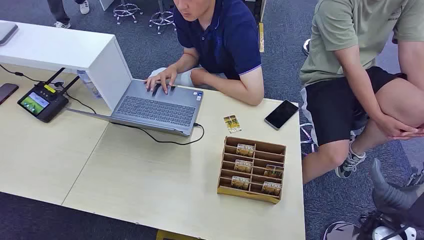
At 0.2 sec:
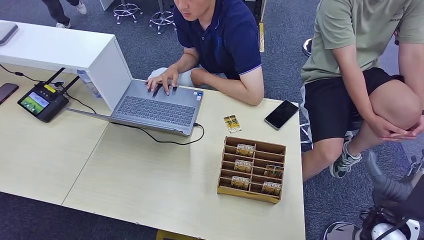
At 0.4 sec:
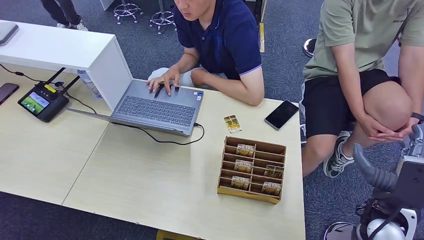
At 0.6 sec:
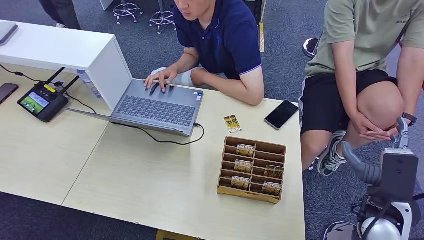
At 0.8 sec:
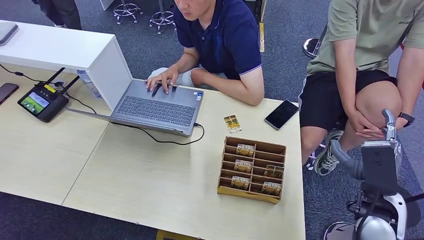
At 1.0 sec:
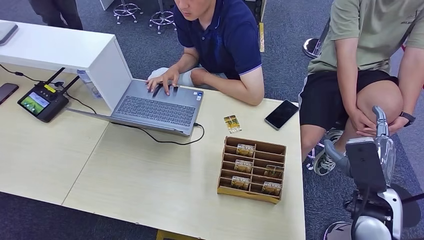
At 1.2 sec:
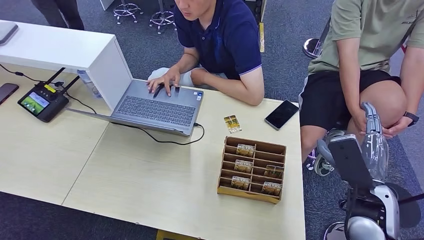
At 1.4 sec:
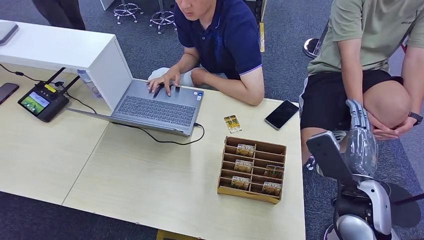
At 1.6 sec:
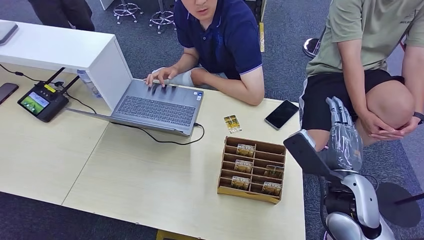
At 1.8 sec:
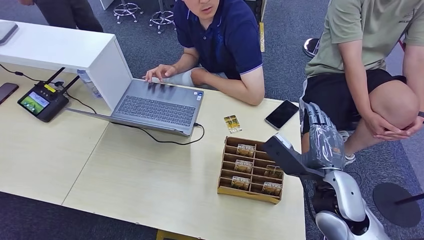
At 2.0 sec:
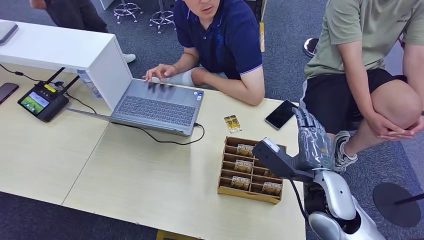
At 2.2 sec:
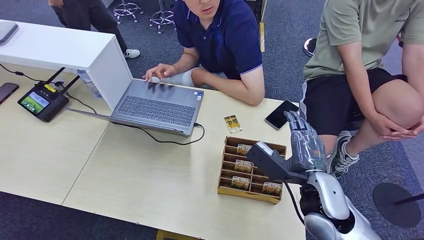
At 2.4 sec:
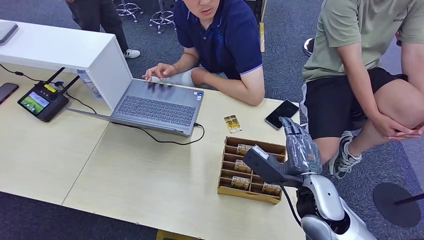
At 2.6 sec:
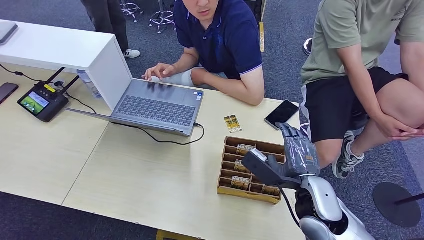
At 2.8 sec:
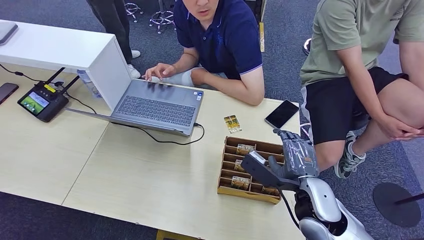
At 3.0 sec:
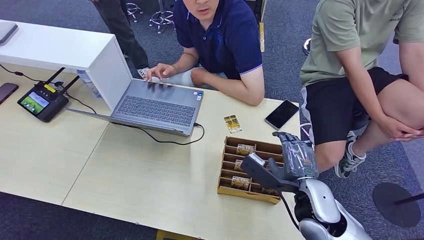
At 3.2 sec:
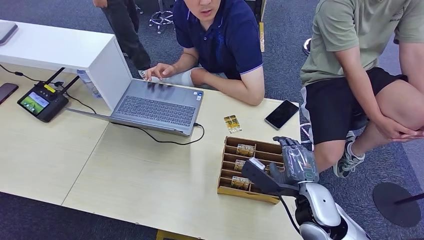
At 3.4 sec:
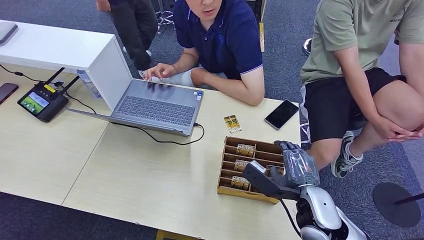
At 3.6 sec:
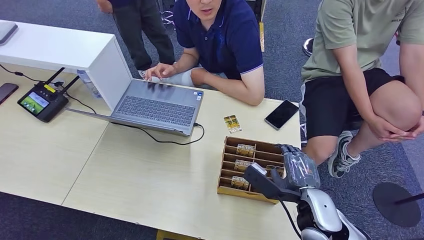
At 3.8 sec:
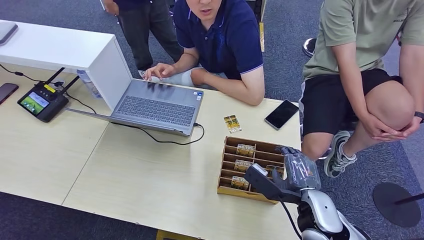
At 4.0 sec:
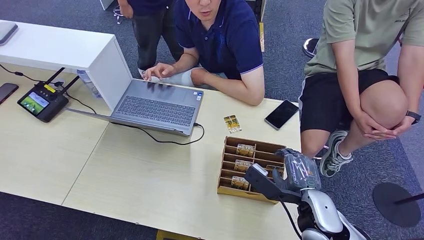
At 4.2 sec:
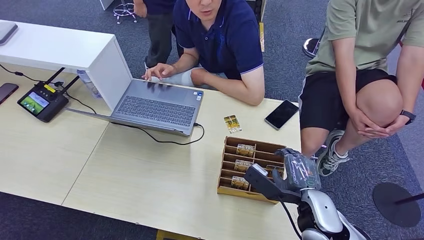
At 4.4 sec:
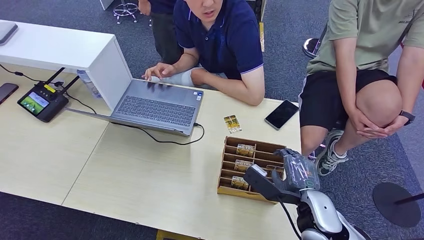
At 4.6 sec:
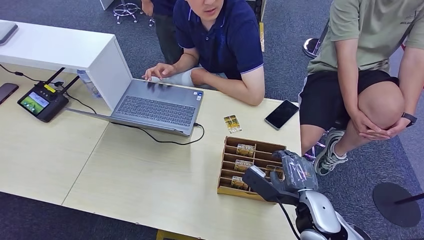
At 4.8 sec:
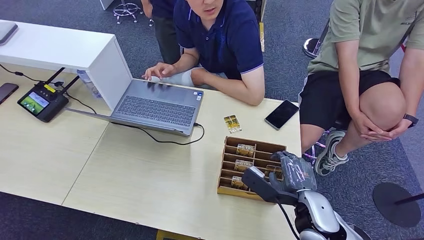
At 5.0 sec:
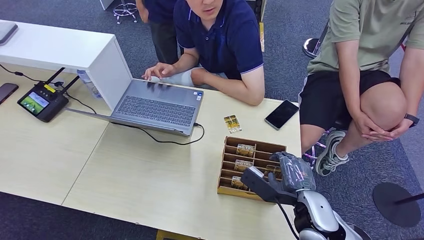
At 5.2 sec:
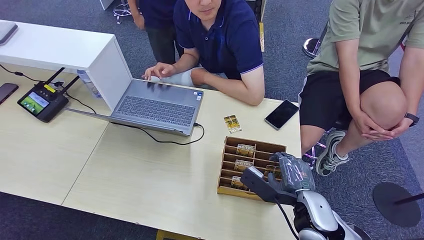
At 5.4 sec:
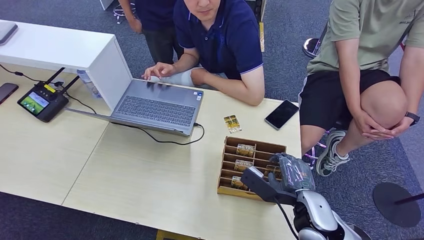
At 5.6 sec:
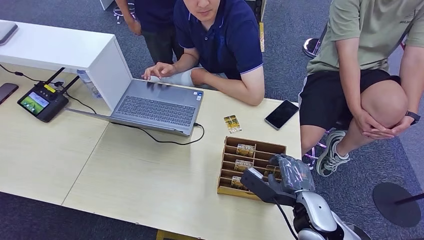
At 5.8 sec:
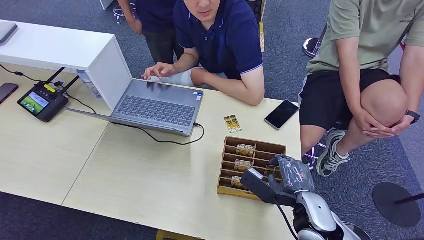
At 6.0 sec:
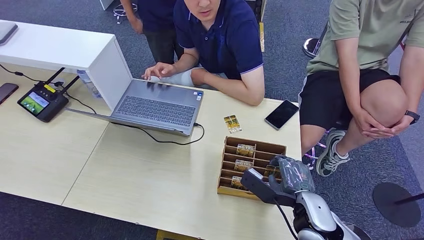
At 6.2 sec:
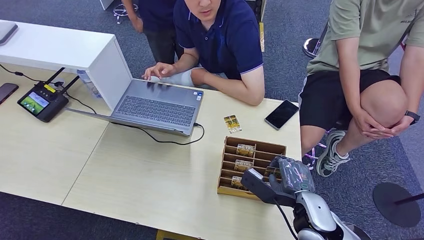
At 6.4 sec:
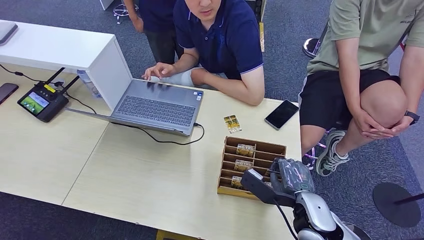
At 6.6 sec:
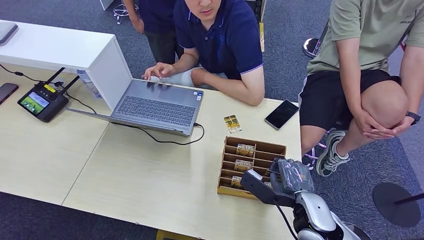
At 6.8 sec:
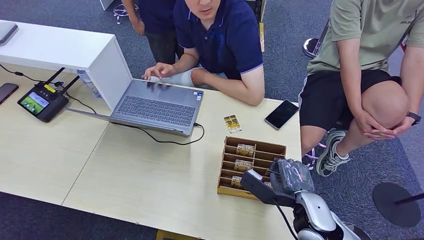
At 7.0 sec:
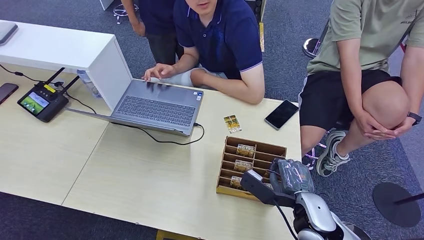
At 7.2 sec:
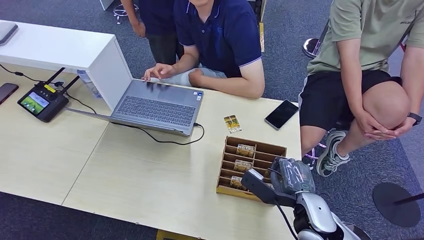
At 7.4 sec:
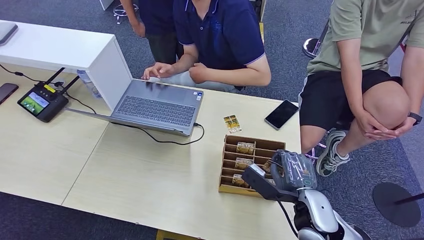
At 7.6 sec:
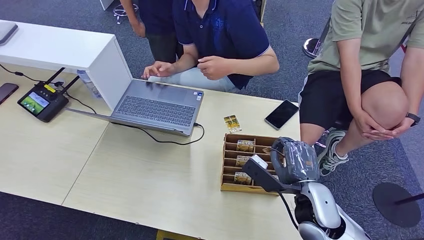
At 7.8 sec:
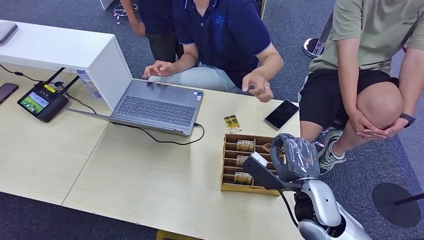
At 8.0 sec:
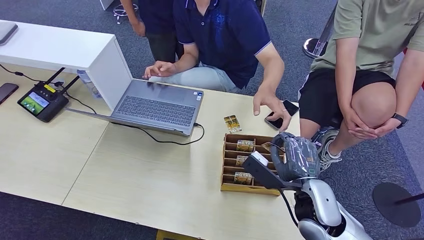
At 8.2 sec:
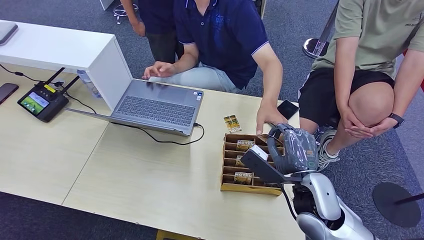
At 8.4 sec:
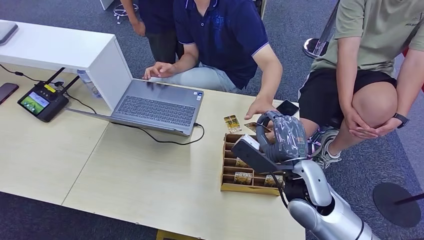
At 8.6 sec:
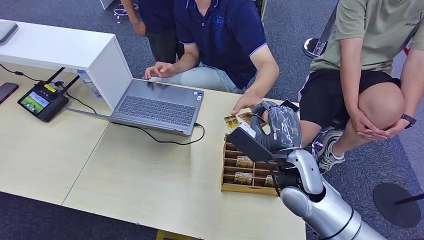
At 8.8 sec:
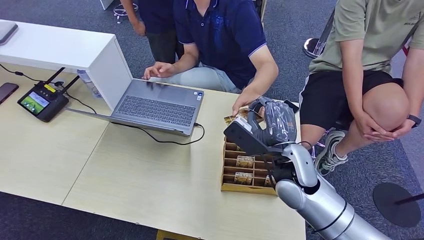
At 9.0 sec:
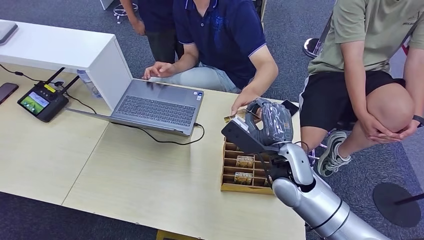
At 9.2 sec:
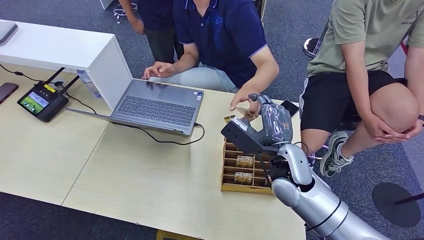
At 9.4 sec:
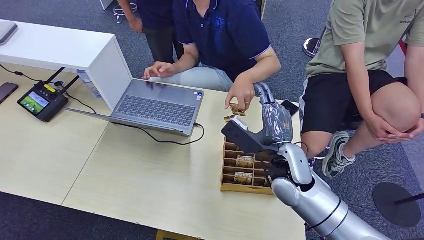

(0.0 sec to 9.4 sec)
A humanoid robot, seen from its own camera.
Step, 0.0 sec - 8.2 sec: Pick up the key card from the card box.
Step, 8.4 sec - 9.4 sec: Hand the key card to the target.
1.6 sec - 3.2 sec: The right hand is displaced downward by some 5 cm.
3.2 sec - 4.8 sec: There are only small adjustments of the hands.
4.8 sec - 6.2 sec: Both hands stay put.
6.2 sec - 7.8 sec: The hands make only small movements.
7.8 sec - 9.4 sec: The right hand goes some 10 cm forward and to the left.
